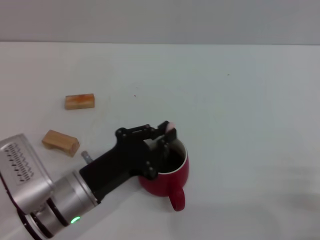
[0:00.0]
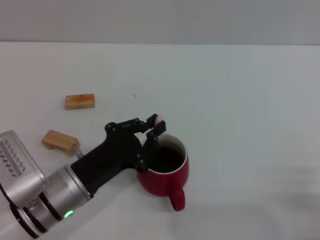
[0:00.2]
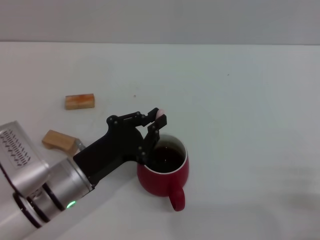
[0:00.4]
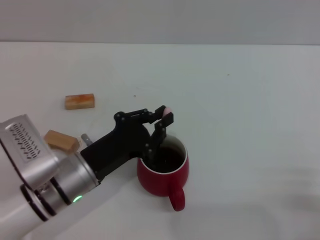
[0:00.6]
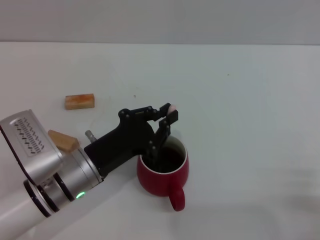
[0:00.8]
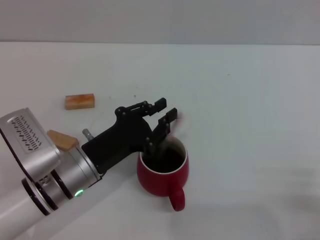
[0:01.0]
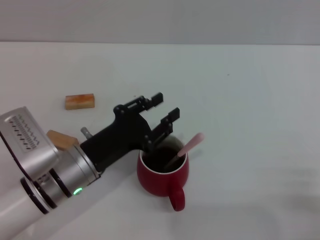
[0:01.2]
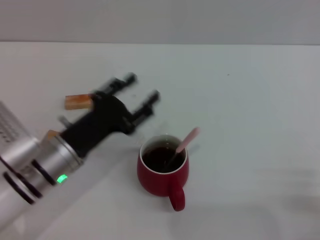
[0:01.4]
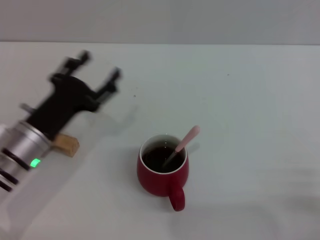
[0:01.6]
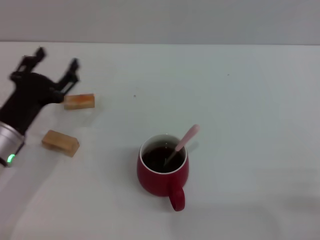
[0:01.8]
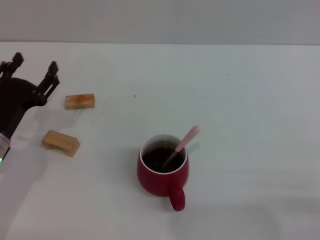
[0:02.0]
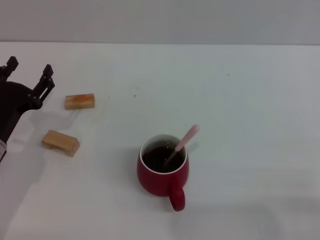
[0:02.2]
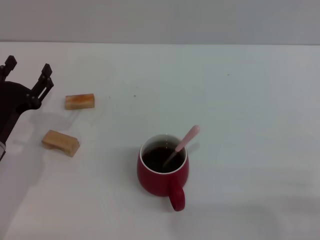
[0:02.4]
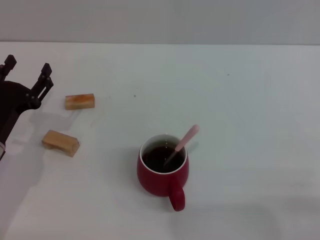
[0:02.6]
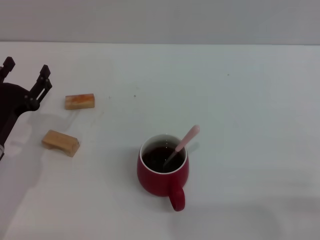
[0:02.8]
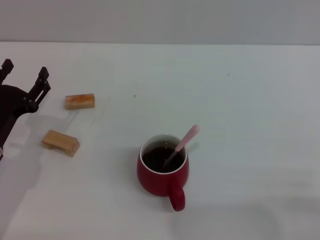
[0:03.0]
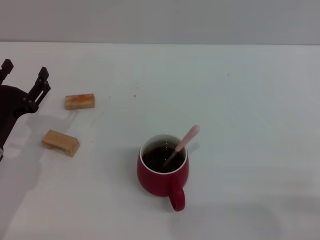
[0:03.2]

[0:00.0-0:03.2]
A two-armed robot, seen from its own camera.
Task of the whole recording: Move the red cup to the center, lift the pink spoon, stir it three times in the cup, and put the spoon into the cup.
0:00.0 to 0:01.6: The left gripper shifts roughly 10 cm forward and to the left, and opens its fingers.
0:01.6 to 0:03.2: The left gripper is displaced to the left by some 5 cm.
